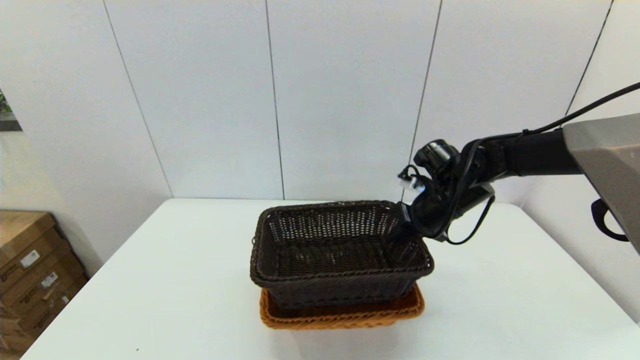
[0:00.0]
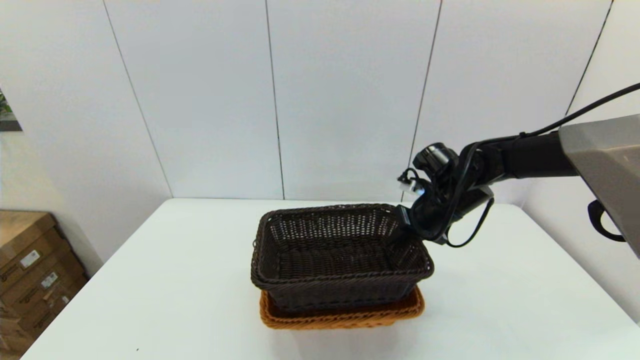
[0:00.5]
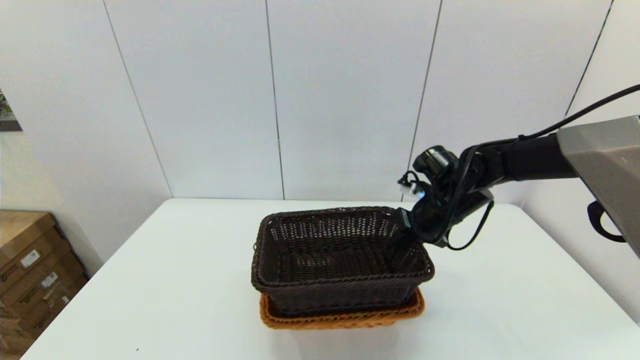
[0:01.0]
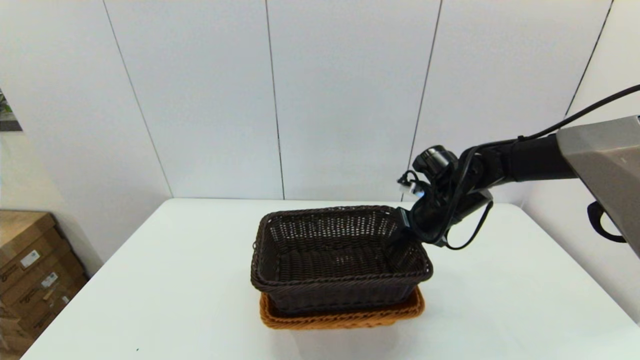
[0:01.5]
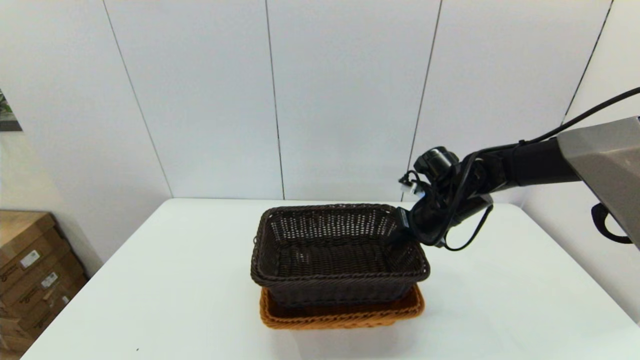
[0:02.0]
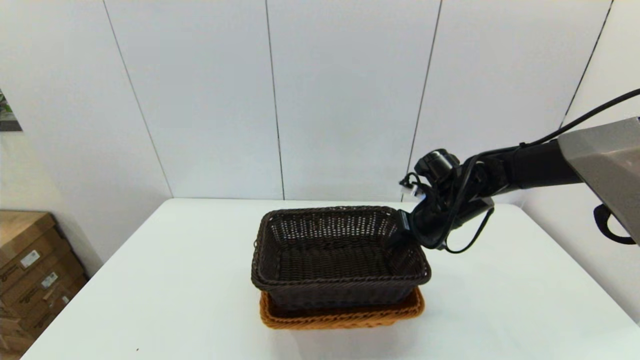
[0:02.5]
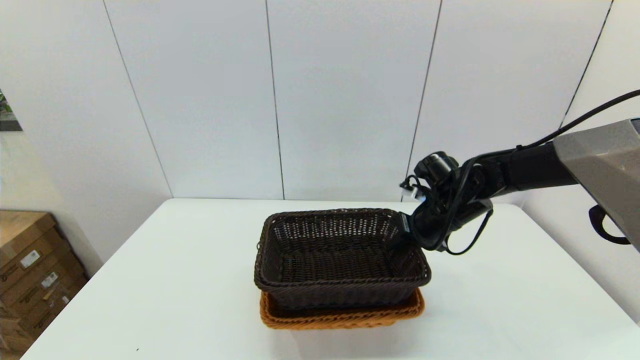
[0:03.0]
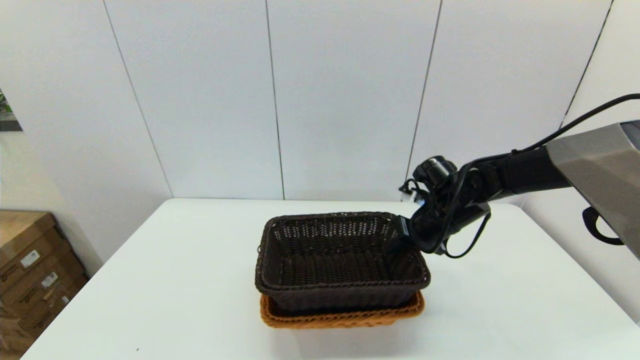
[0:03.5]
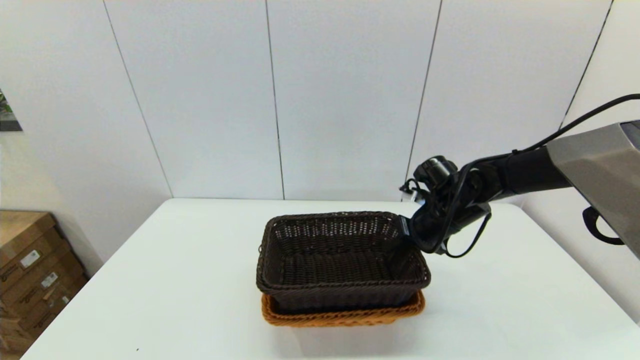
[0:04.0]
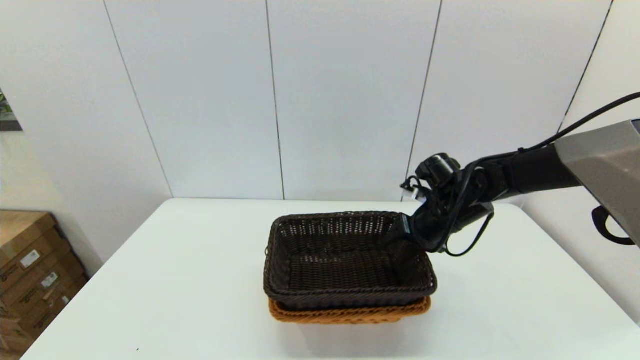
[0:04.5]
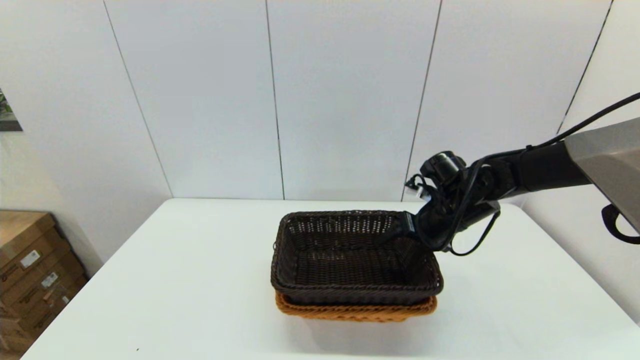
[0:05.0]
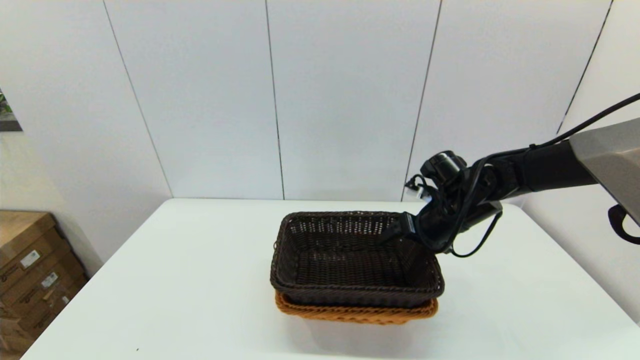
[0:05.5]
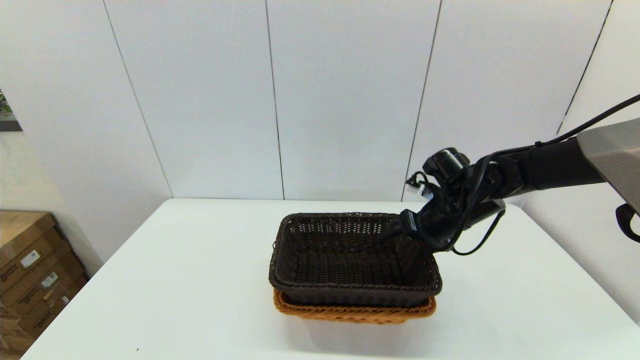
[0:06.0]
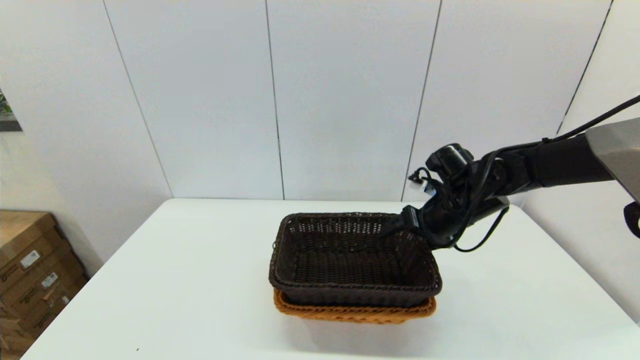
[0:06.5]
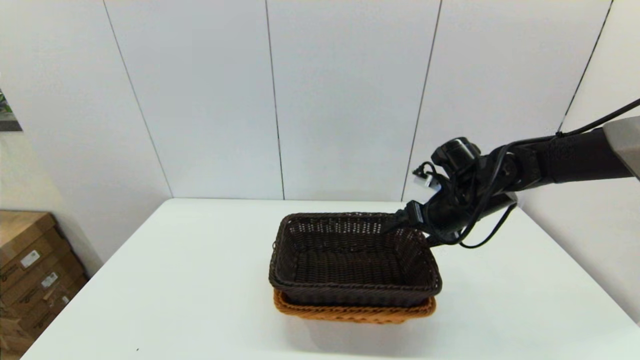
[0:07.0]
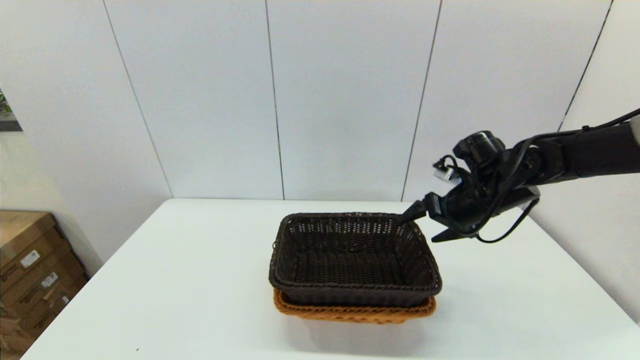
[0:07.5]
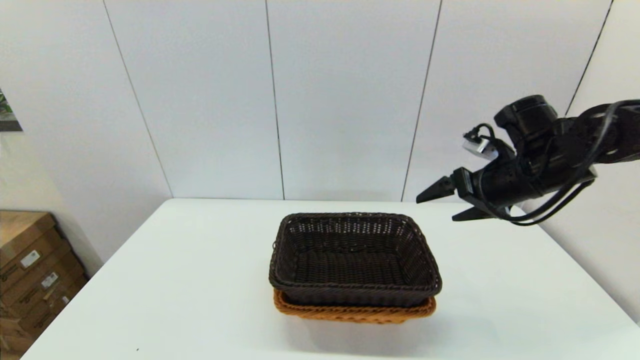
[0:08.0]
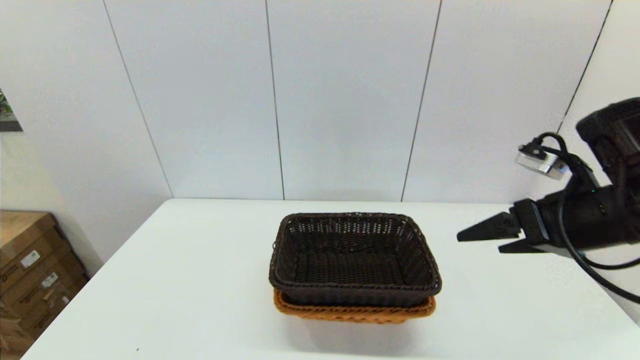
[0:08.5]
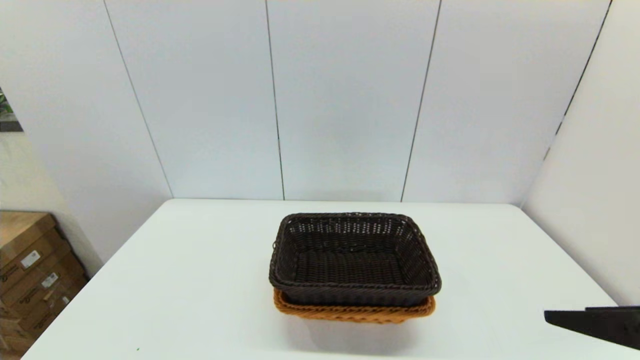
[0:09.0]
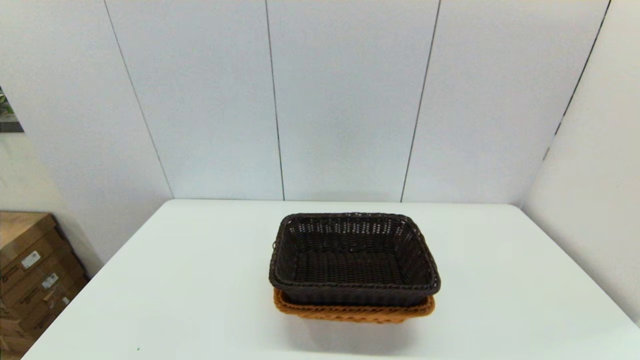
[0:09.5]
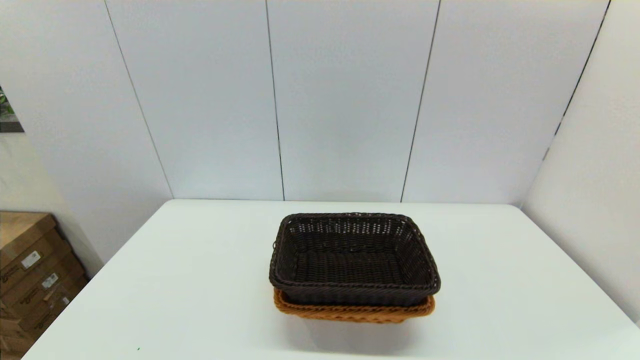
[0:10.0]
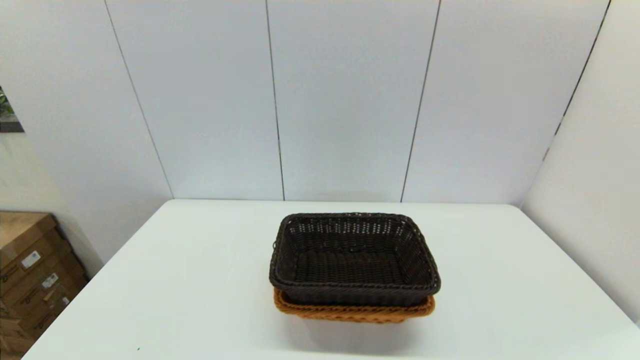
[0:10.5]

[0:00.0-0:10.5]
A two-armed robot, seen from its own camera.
Task of the whole recording: stack a basket on top of another basket.
Step, 0:00.0 to 0:07.5: Place the dark basket into the light color basket with the right gripper.
0:00.0 to 0:02.0: Neither gripper changes place.
0:02.0 to 0:04.0: The grippers make only small movements.
0:04.0 to 0:06.5: The right gripper opens its fingers.
0:06.5 to 0:08.5: The right gripper goes approximately 20 cm backward, upward and to the right.
0:08.5 to 0:10.5: The right gripper moves backward and downward, approximately 25 cm.

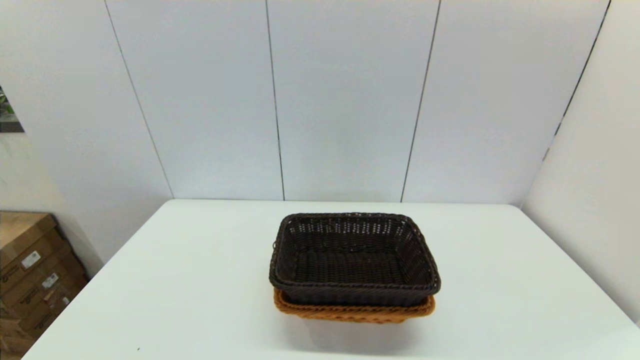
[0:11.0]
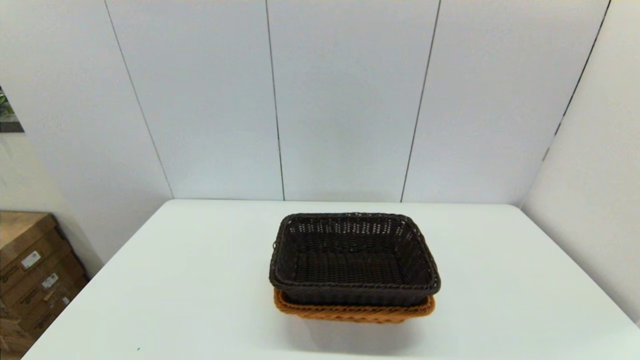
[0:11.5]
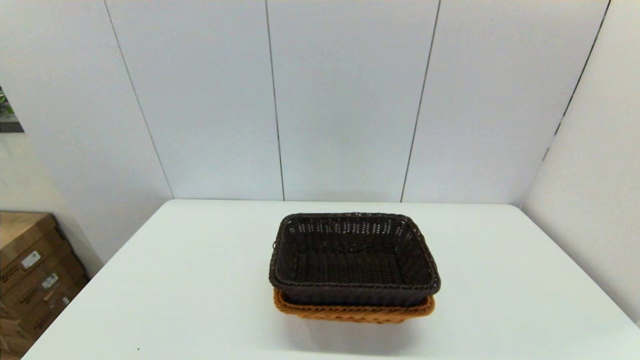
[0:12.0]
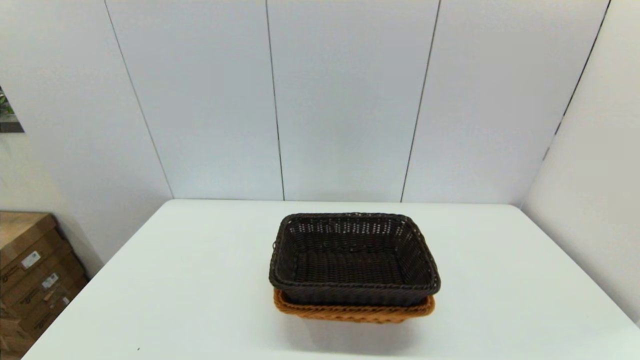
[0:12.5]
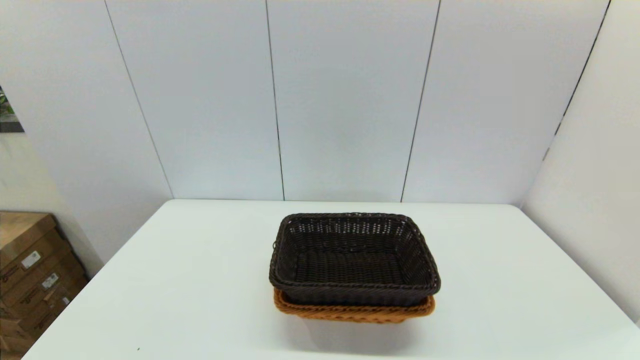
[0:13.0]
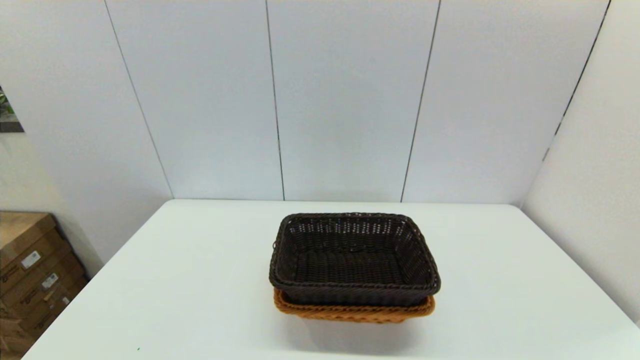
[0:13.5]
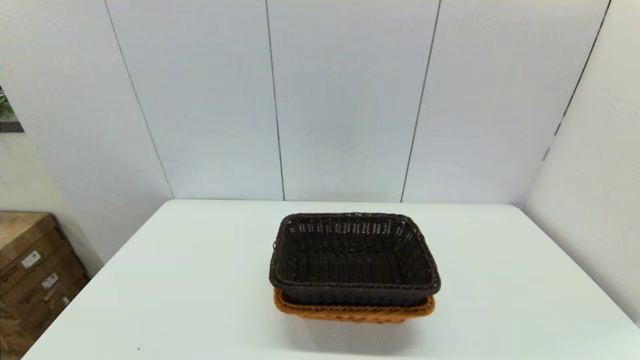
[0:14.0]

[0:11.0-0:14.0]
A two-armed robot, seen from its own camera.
Task of the whole recording: stack a basket on top of another basket.
0:12.5 to 0:14.0: Neither gripper changes place.
